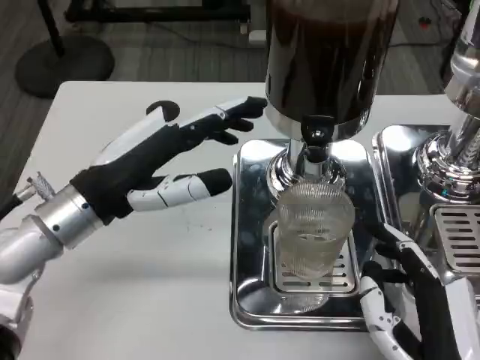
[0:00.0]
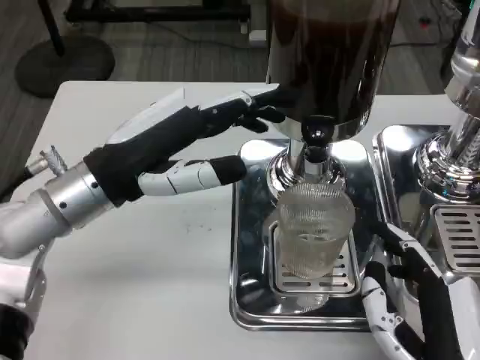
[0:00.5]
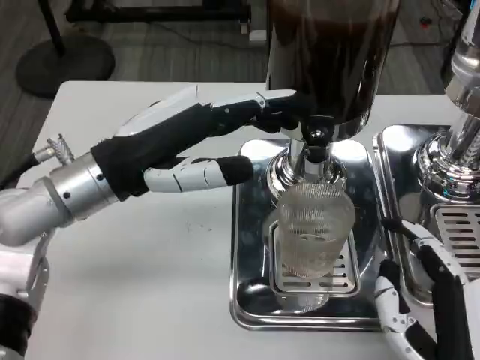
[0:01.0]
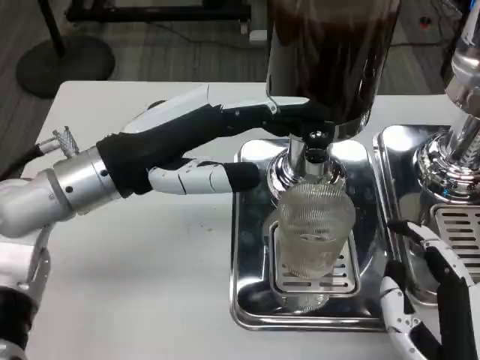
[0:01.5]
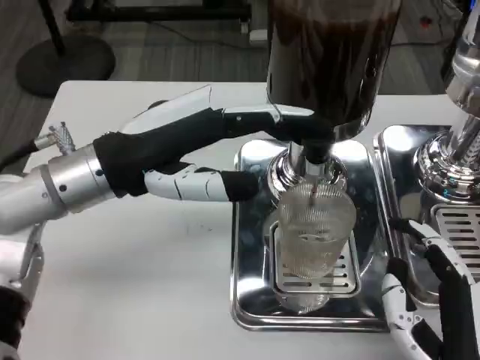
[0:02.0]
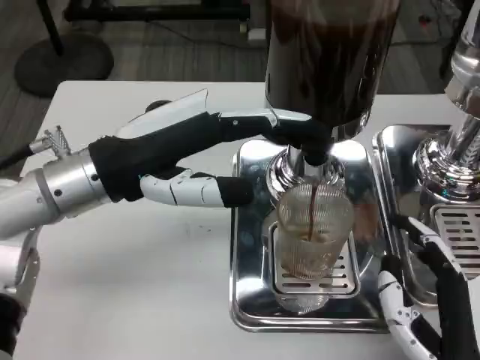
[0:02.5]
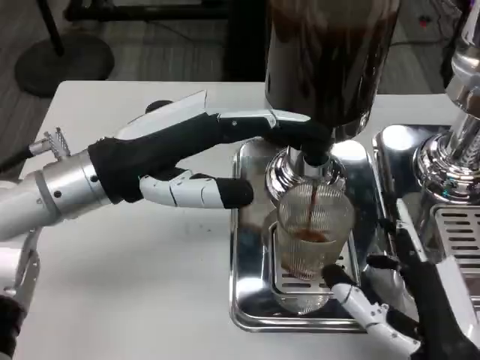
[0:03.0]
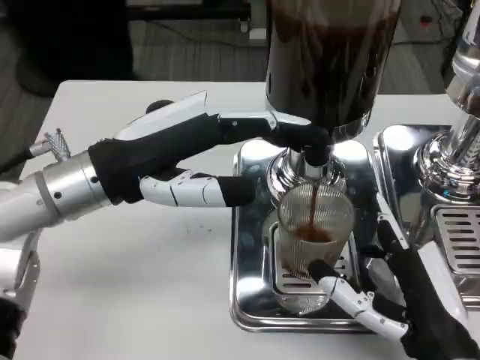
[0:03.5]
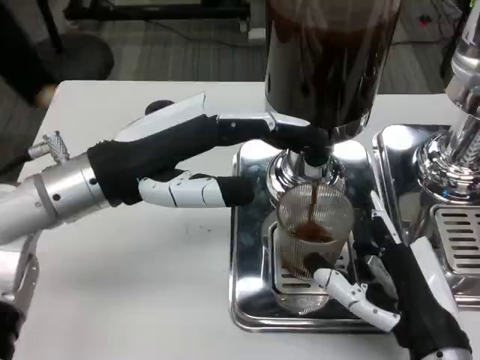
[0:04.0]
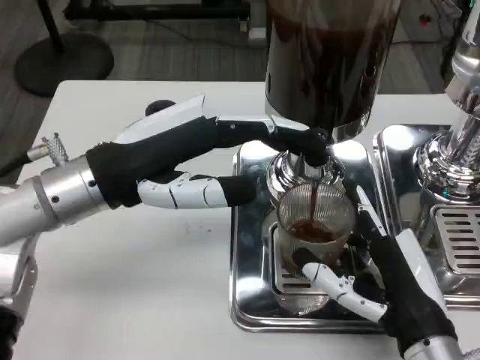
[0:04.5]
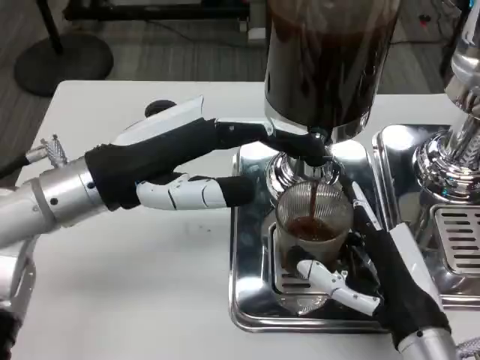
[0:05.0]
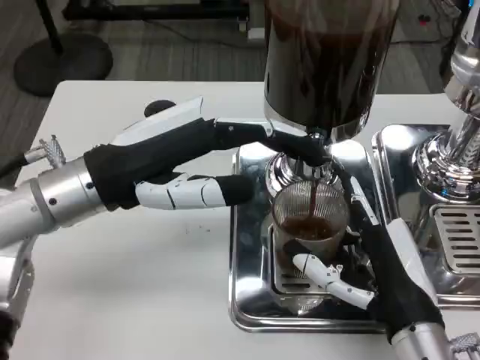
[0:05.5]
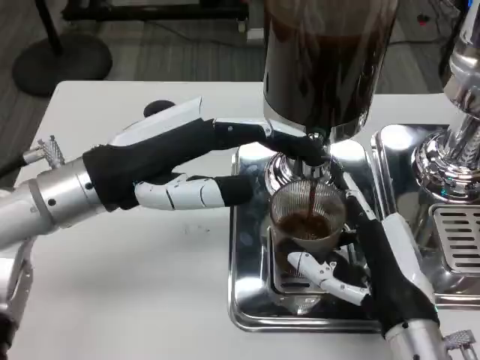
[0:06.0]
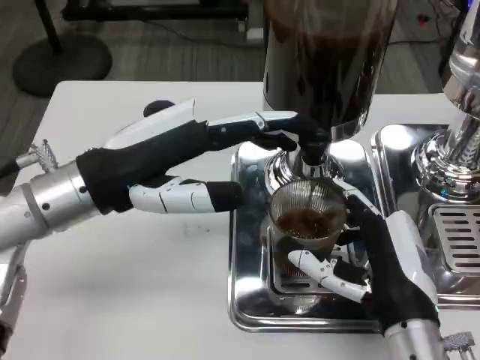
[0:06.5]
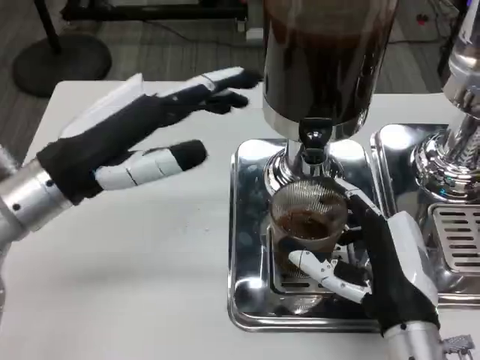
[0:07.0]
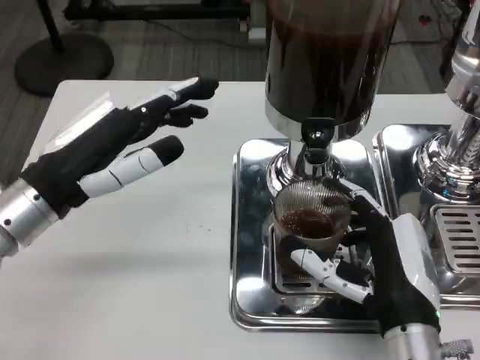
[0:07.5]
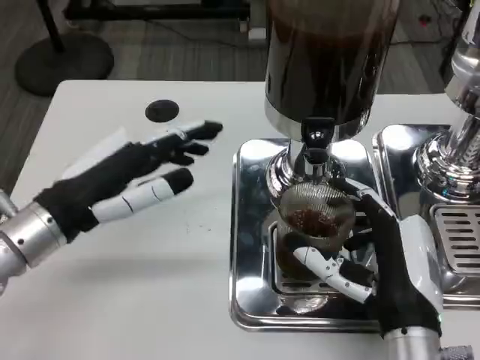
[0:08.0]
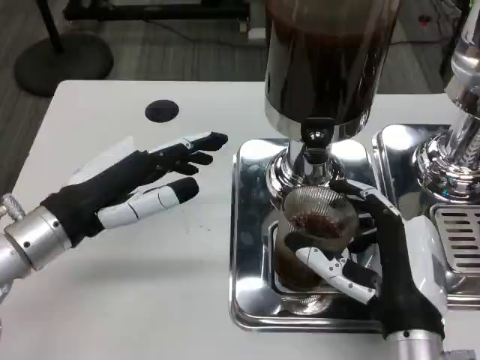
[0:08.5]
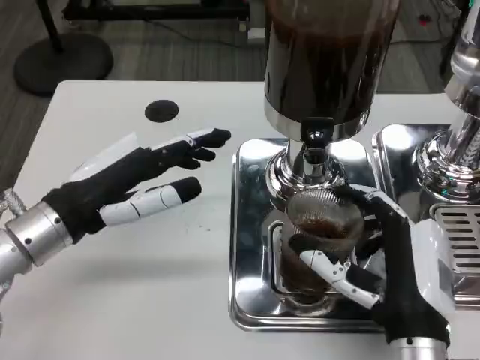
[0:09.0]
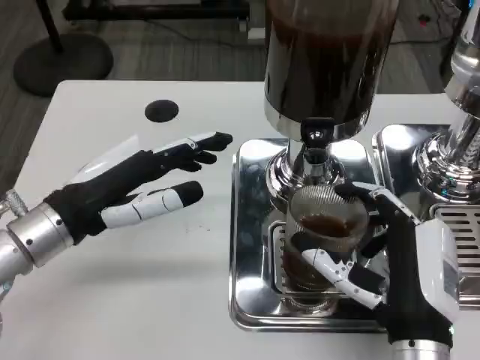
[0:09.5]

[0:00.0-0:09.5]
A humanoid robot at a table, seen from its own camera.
Task of the whole recording: Grasp the cup under the faucet to collect the drink, then remove the cup.
0:00.0 to 0:02.0: The left hand moves upward, some 5 cm.
0:02.0 to 0:04.0: The right hand goes roughly 5 cm forward.
0:04.0 to 0:05.5: There are only small adjustments of the hands.
0:05.5 to 0:07.5: The left hand moves approximately 5 cm.

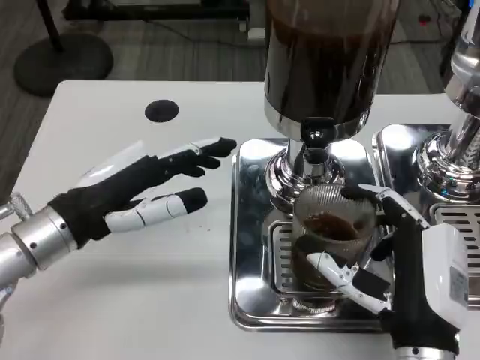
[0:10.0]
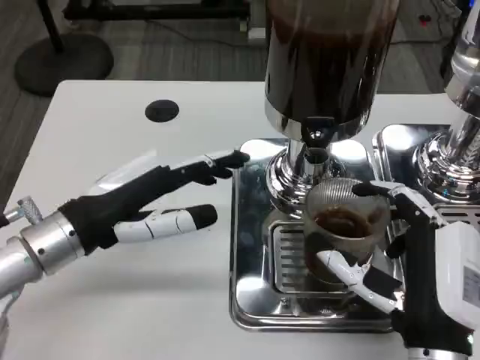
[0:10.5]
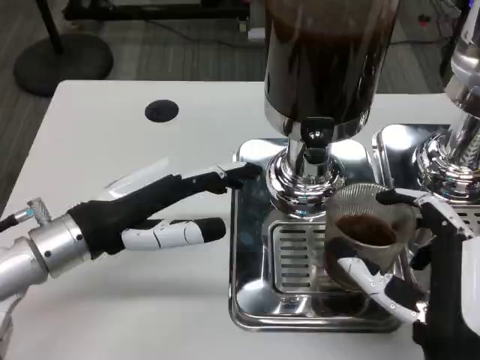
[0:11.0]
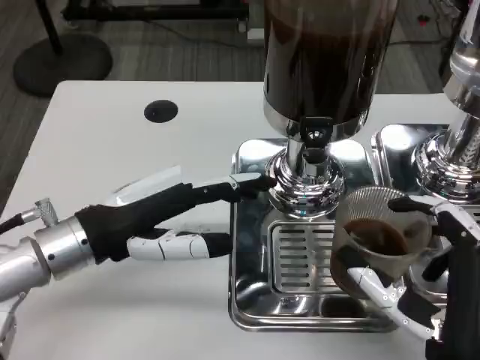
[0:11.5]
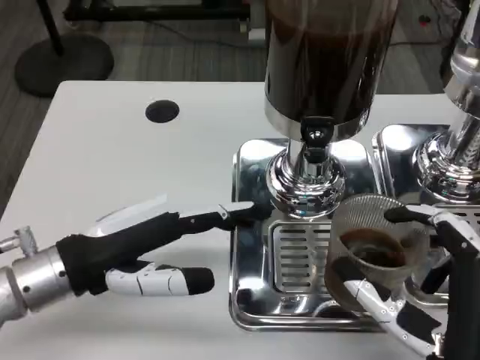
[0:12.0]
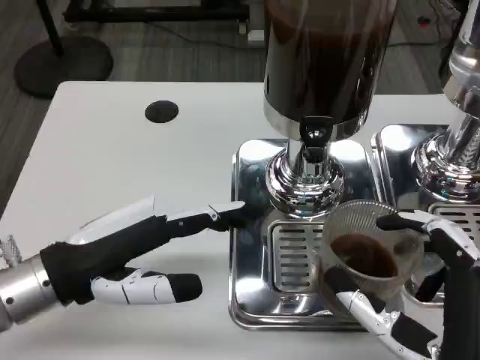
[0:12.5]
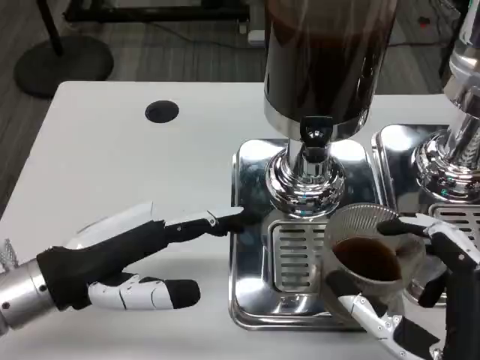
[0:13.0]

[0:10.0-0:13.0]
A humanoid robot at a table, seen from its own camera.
Task of the whole recording: Grasp the cup under the faucet to collect the drink, then remove the cup.
0:11.5 to 0:13.0: The left hand ends up about 5 cm from where it was.

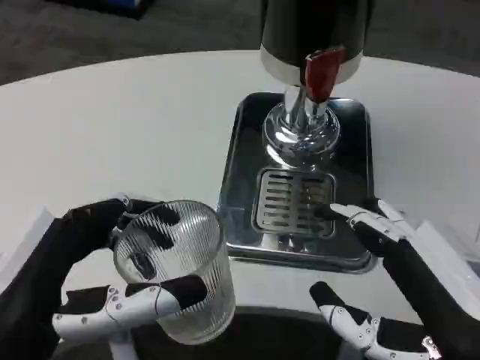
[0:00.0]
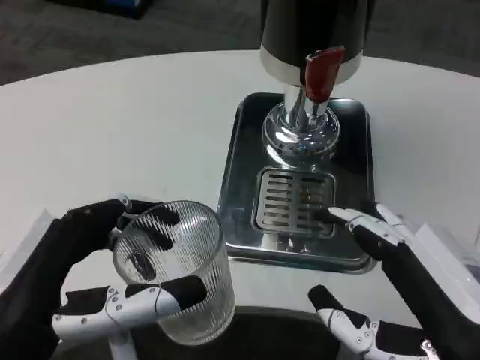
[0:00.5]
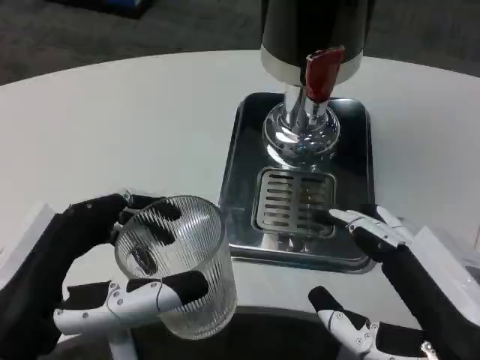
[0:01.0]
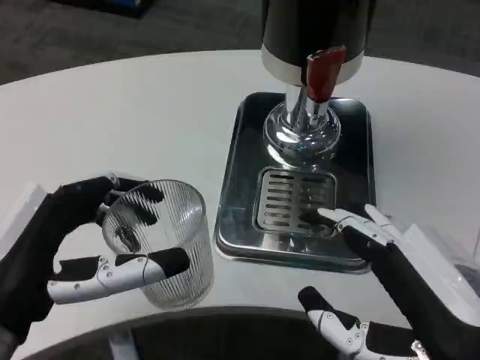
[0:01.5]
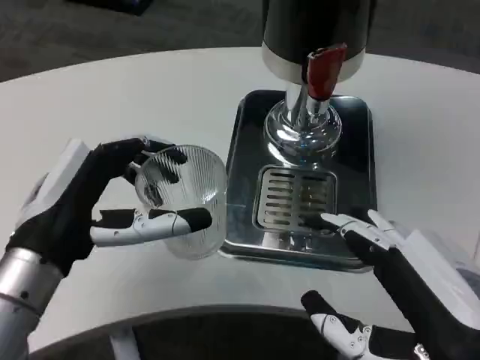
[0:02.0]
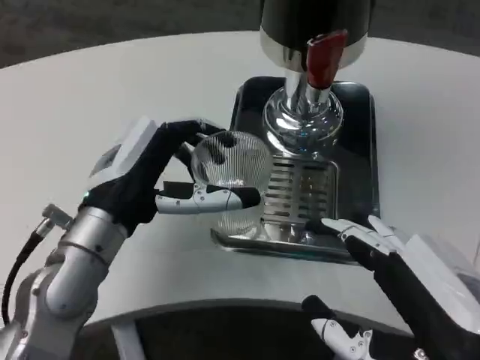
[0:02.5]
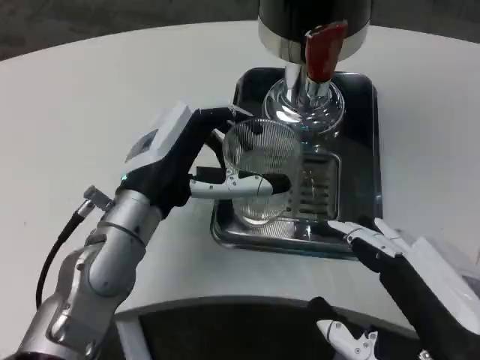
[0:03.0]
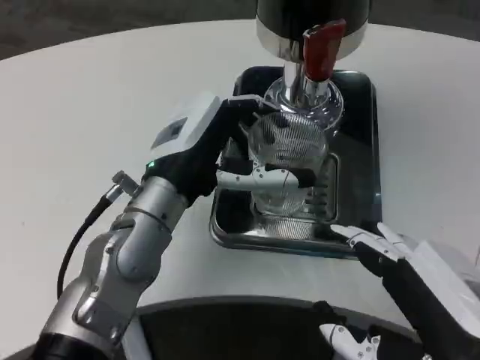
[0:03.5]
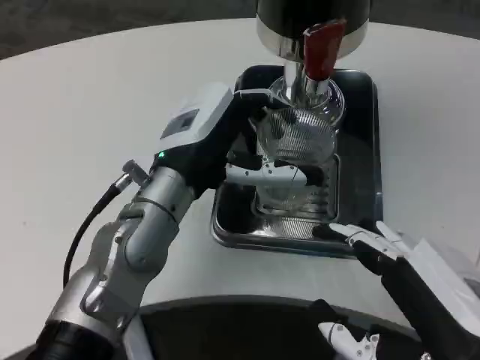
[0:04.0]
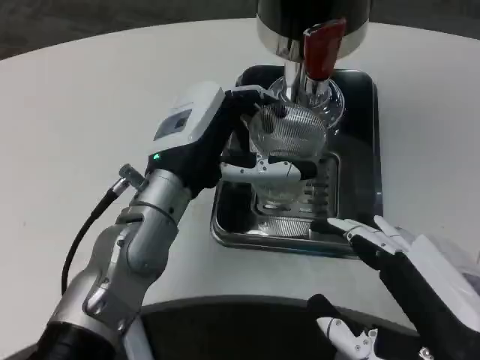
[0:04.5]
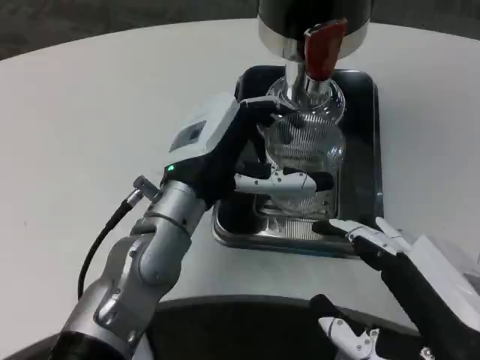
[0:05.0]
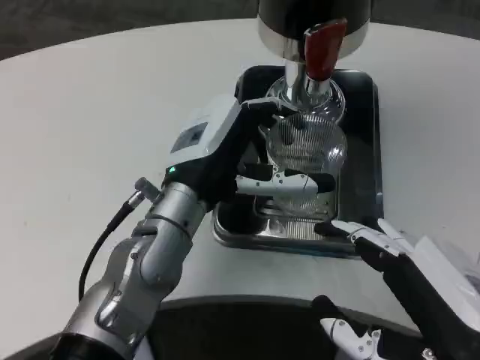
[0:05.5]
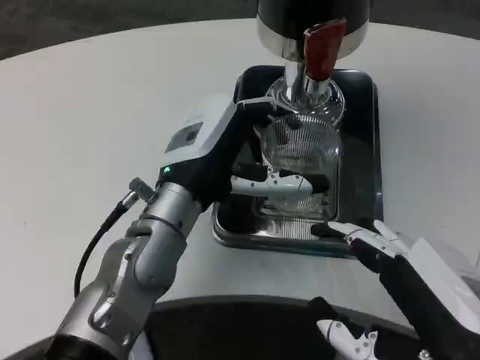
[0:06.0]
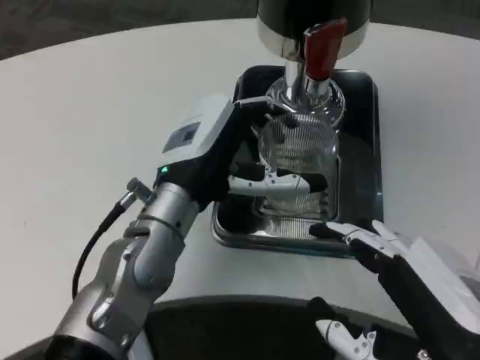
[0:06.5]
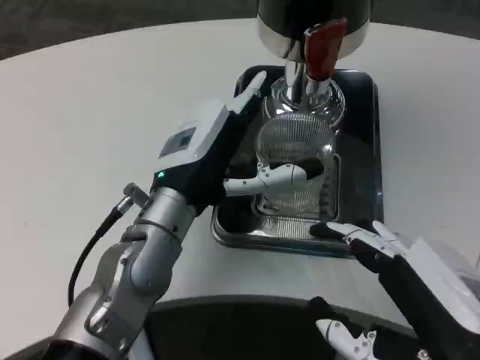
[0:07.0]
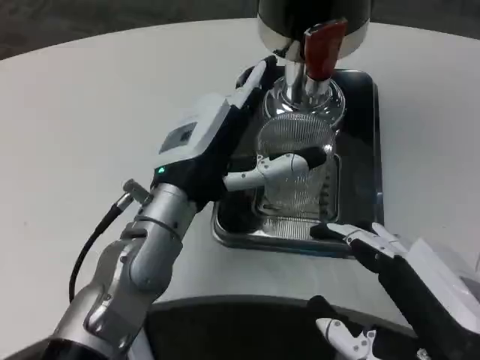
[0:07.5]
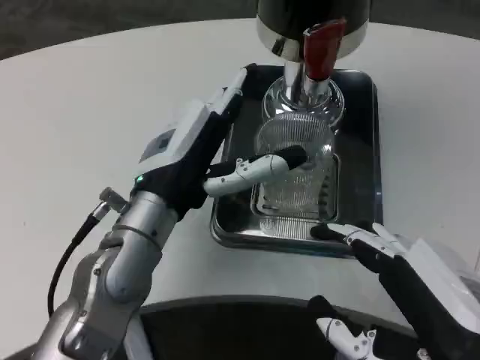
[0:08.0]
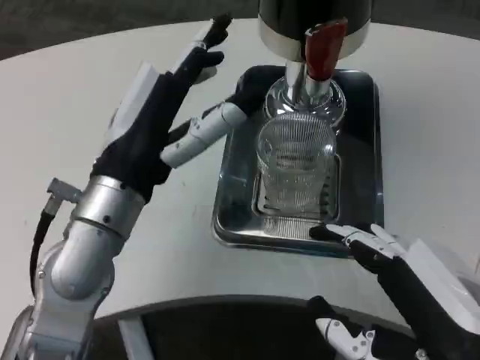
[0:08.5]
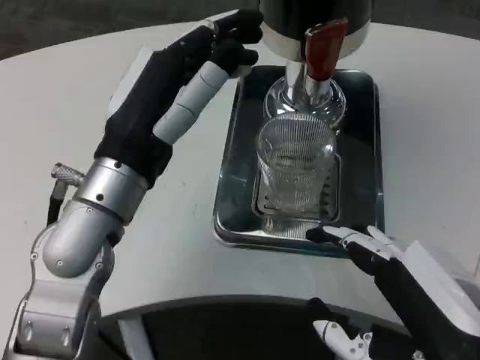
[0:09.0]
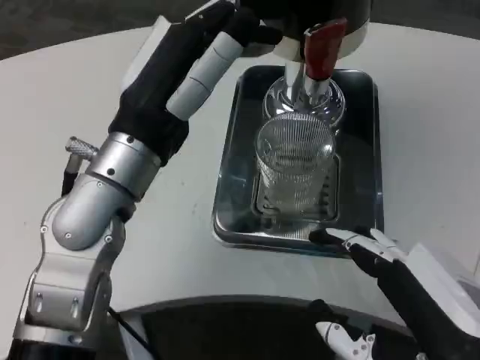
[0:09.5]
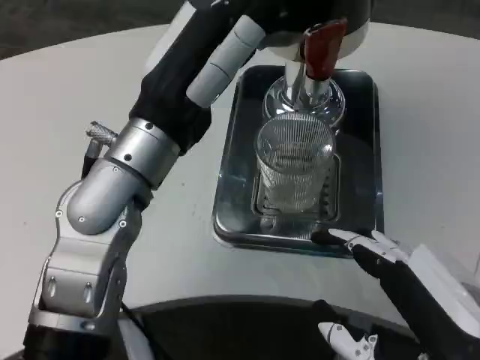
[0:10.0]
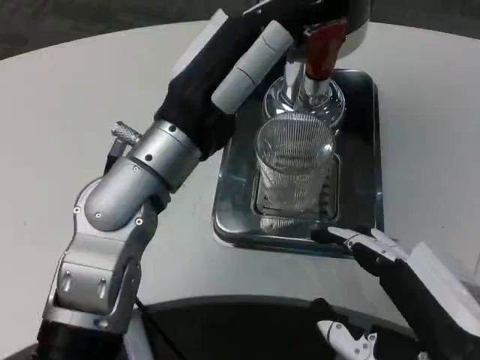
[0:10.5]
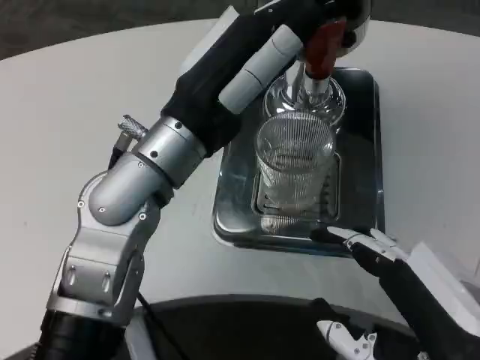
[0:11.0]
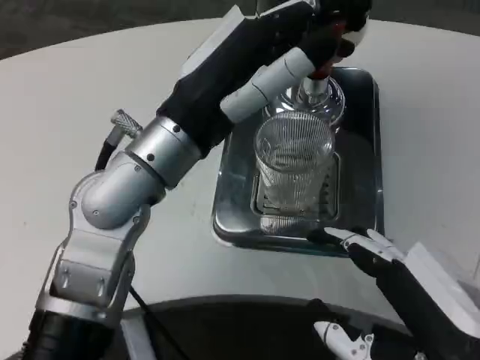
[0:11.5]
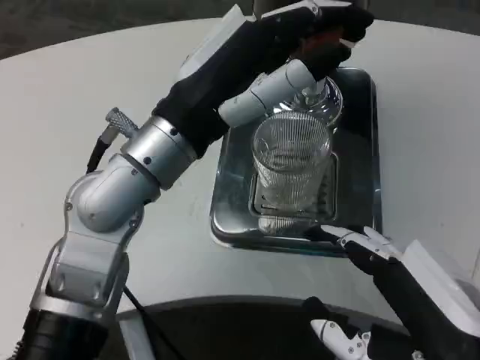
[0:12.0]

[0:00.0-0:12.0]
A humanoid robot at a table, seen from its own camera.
Task of the whole recording: Grasp the cup under the faucet to collect the drink, then remove the cup.
0:00.0 to 0:02.0: The left hand travels forward by some 10 cm.
0:02.0 to 0:04.0: The left hand goes approximately 15 cm to the right and forward.
0:04.0 to 0:08.0: The hands stay close to where they were, moving slightly.
0:08.0 to 0:10.0: The left hand shifts some 5 cm upward.

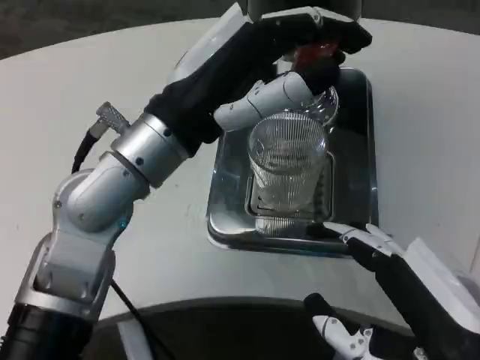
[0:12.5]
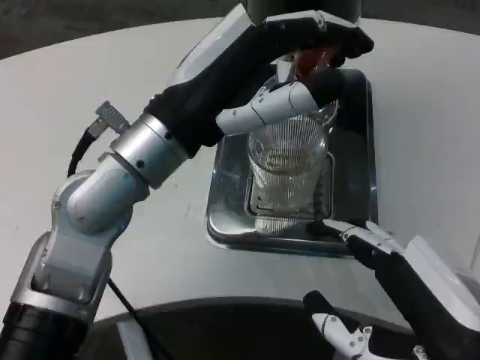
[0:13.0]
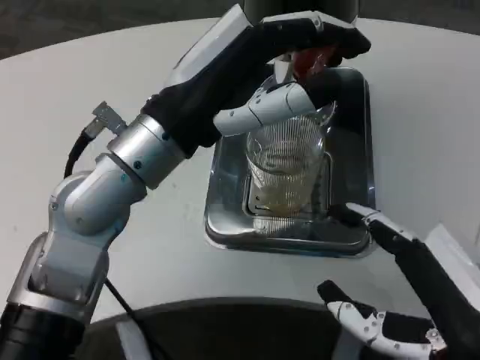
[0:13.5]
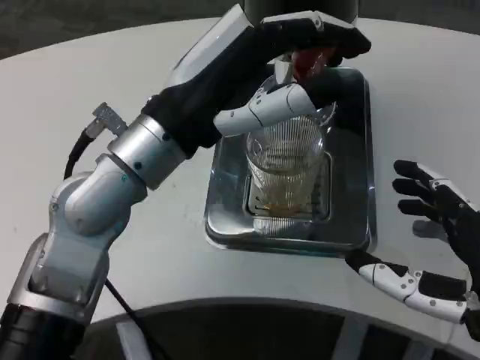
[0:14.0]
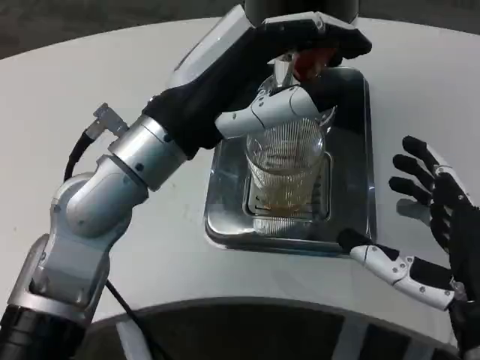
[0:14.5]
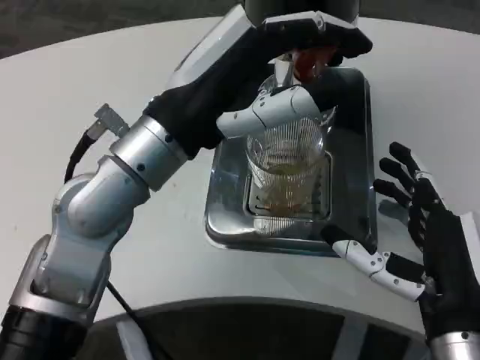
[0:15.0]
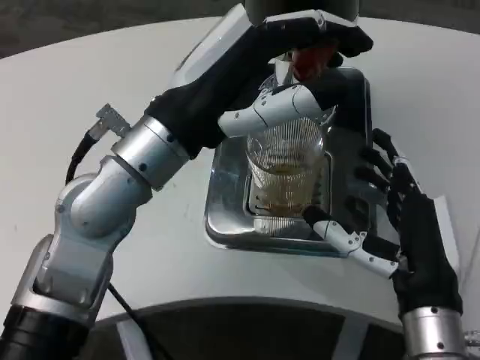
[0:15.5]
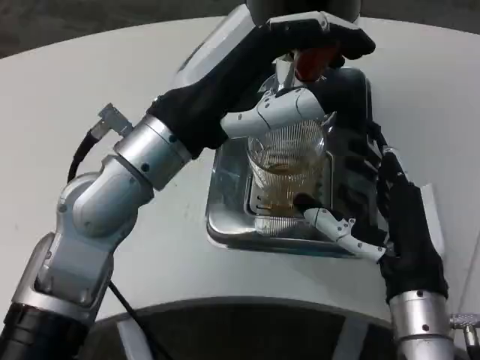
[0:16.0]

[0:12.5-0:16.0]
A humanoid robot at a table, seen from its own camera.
Task of the whole recording: Grasp the cup under the faucet to collect the drink, then remove the cup.
0:12.5 to 0:14.5: The right hand travels forward by some 5 cm.
0:14.5 to 0:16.0: The right hand travels forward by some 5 cm.
